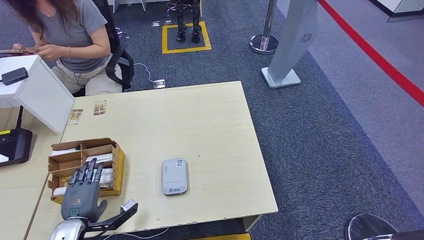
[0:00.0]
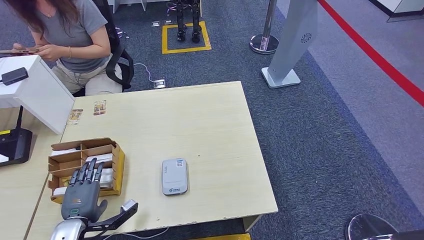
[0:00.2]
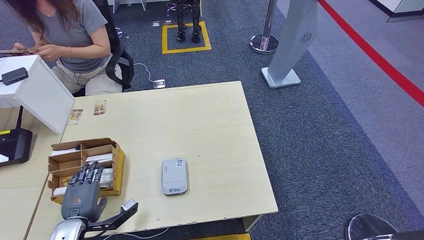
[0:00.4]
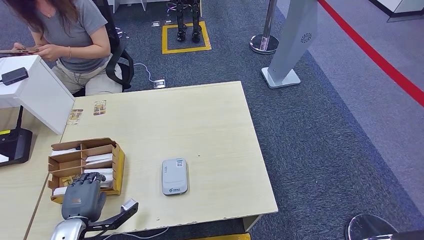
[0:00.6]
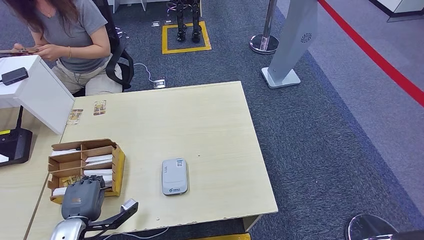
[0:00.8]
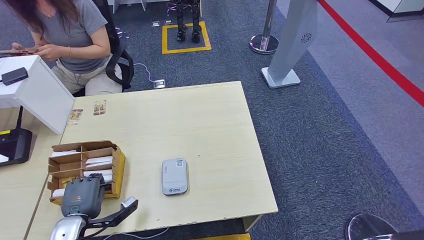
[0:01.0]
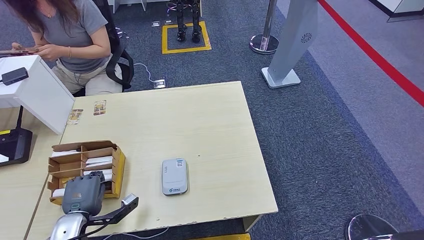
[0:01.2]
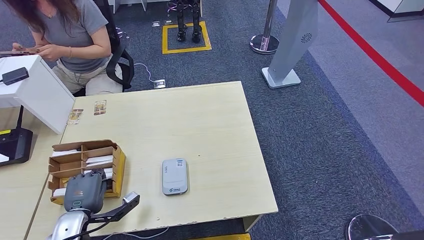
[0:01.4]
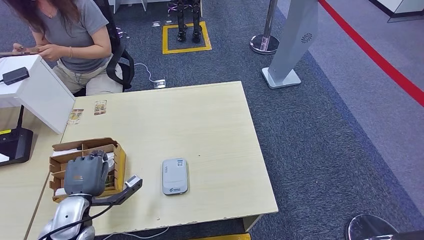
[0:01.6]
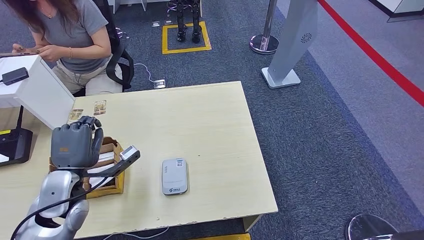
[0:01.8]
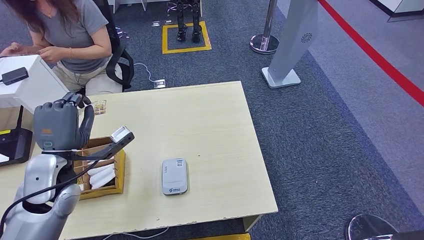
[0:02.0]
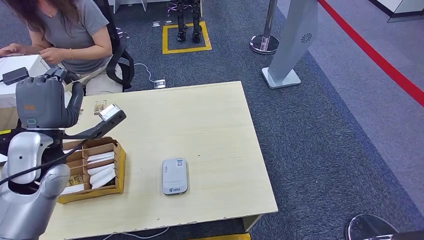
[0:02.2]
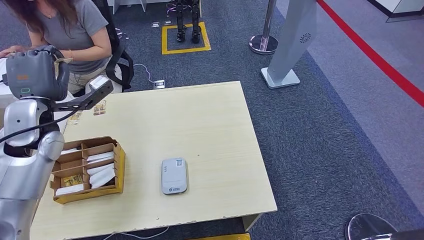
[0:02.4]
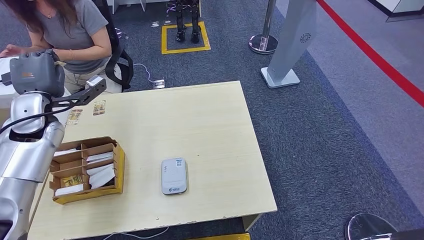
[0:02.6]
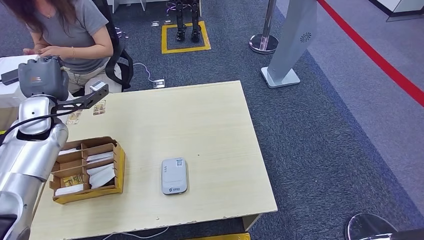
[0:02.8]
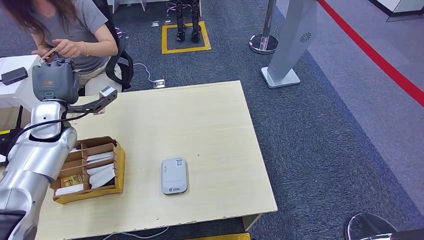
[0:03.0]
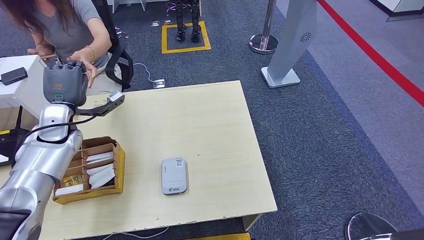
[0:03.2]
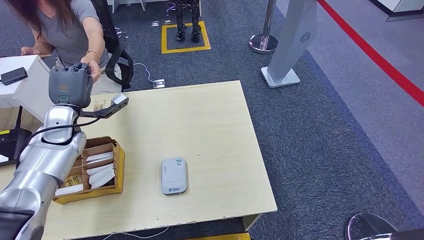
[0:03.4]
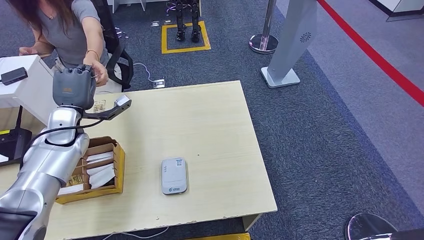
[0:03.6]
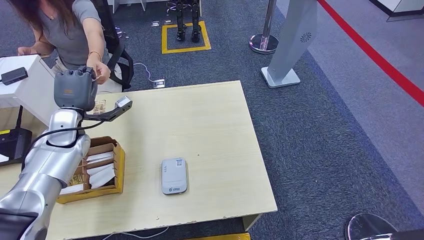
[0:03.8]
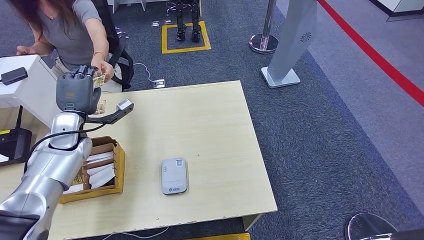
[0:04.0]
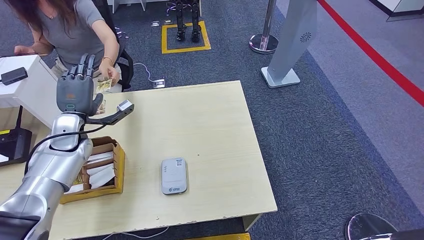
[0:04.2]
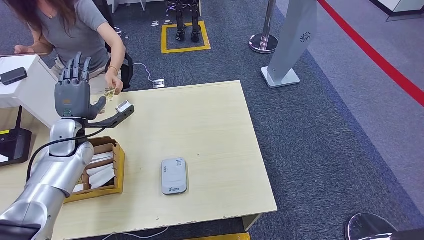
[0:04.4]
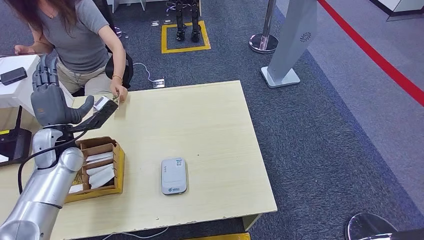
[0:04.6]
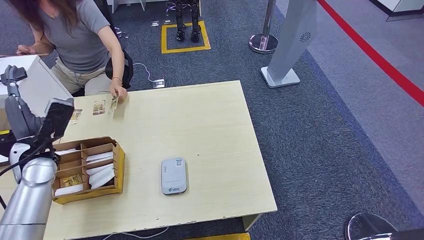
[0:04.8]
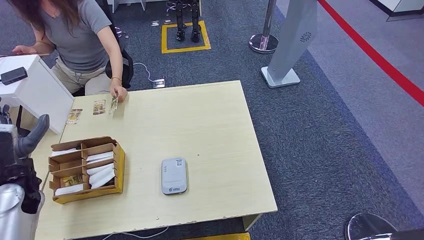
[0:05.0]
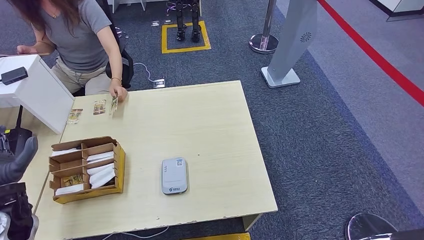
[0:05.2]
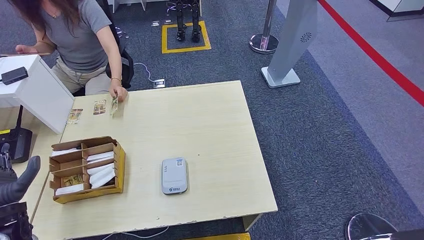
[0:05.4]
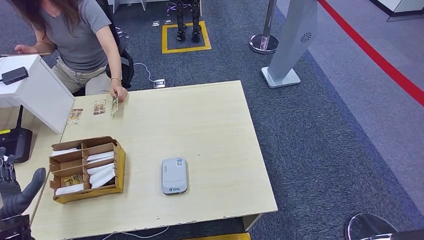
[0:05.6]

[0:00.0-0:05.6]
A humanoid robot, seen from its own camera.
Step, 0:00.0 to 0:02.0: Pick up the room key from the key card box.
Step, 0:02.4 to 0:05.6: Hand the room key to the person.
0:00.0 to 0:01.4: The hands make only small movements.
0:01.4 to 0:02.8: The left hand travels forward and upward by roughly 30 cm; the right hand shifts roughly 5 cm forward.
0:02.8 to 0:04.2: The left hand shifts roughly 5 cm downward.
0:04.2 to 0:05.6: The left hand goes roughly 25 cm backward.
